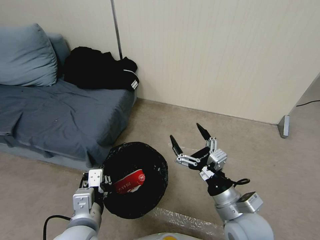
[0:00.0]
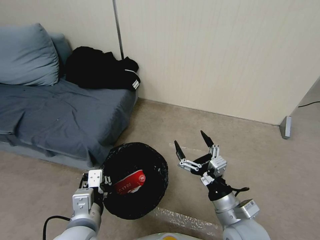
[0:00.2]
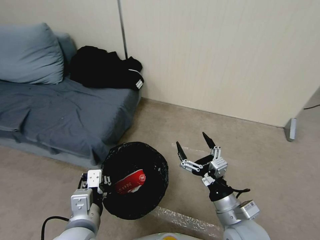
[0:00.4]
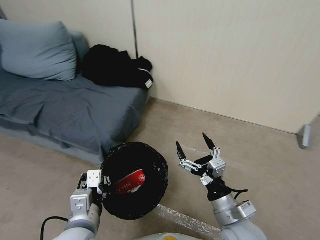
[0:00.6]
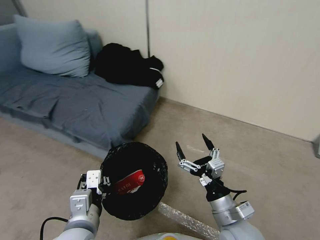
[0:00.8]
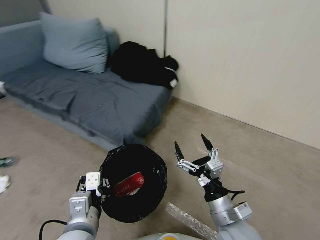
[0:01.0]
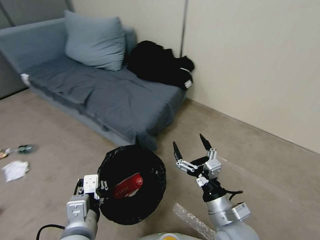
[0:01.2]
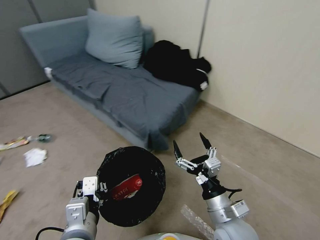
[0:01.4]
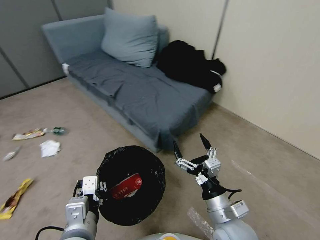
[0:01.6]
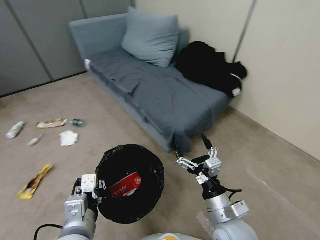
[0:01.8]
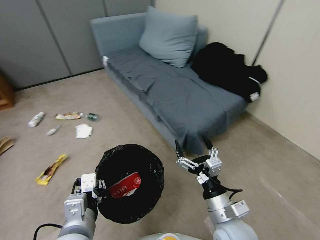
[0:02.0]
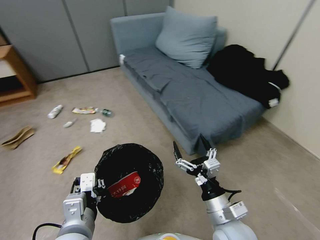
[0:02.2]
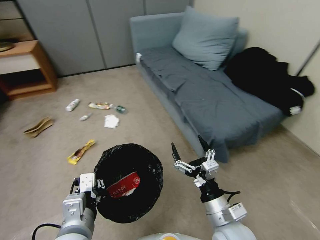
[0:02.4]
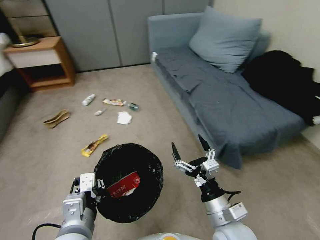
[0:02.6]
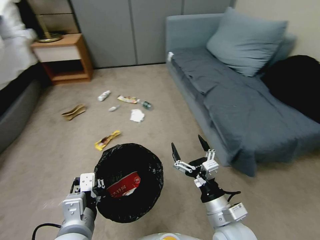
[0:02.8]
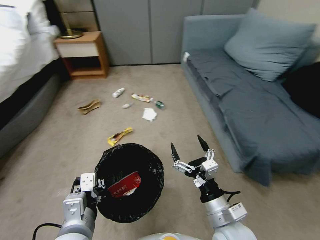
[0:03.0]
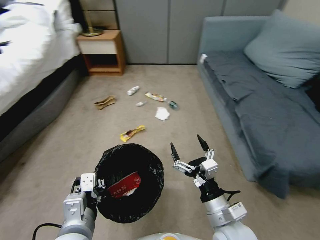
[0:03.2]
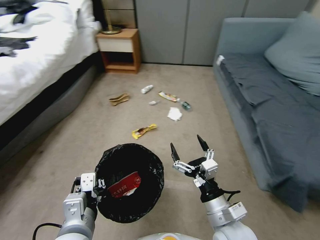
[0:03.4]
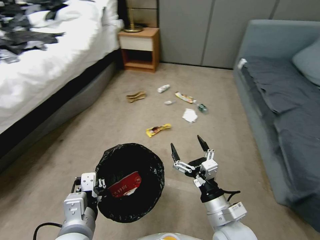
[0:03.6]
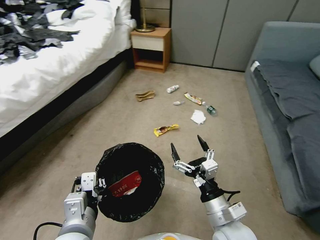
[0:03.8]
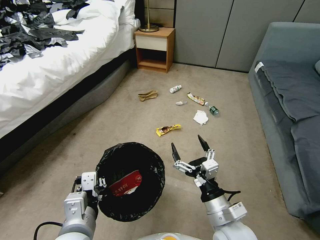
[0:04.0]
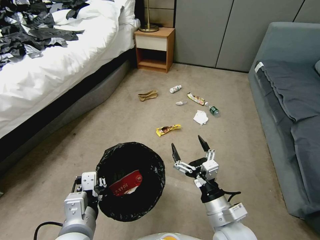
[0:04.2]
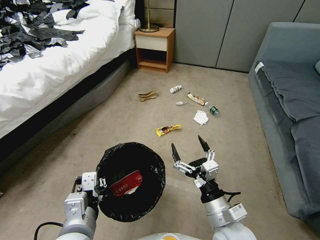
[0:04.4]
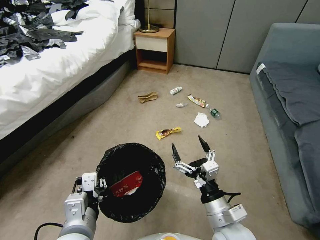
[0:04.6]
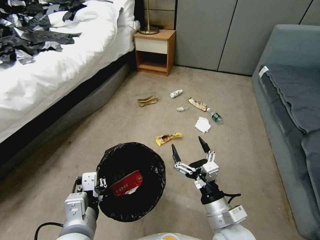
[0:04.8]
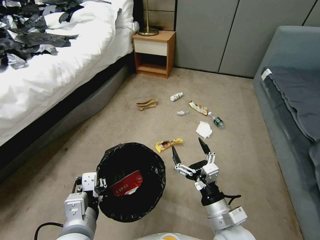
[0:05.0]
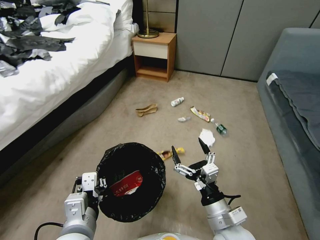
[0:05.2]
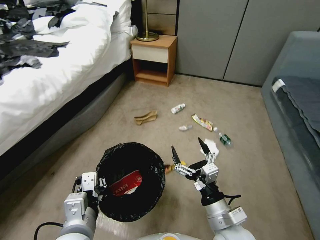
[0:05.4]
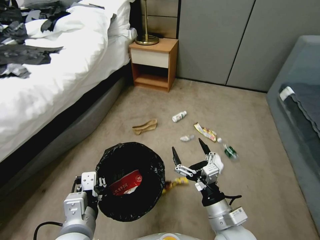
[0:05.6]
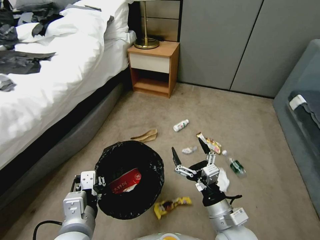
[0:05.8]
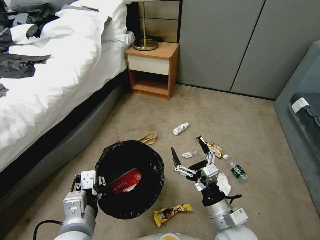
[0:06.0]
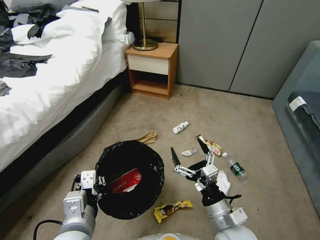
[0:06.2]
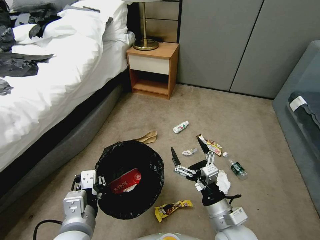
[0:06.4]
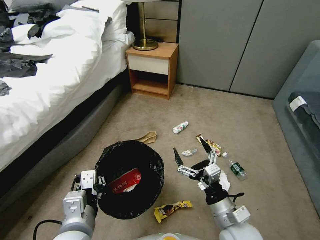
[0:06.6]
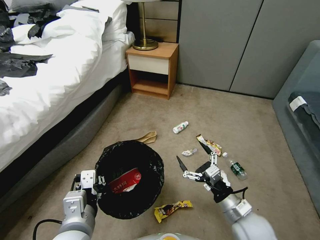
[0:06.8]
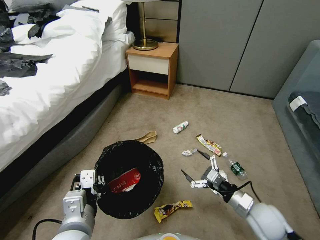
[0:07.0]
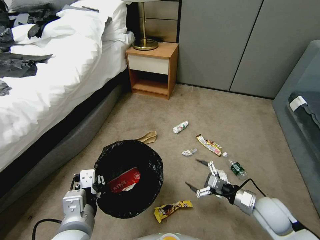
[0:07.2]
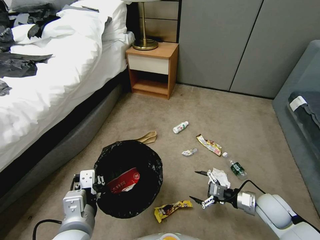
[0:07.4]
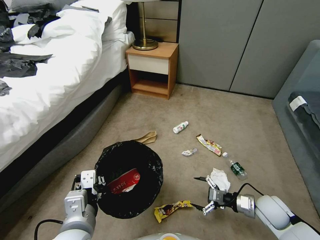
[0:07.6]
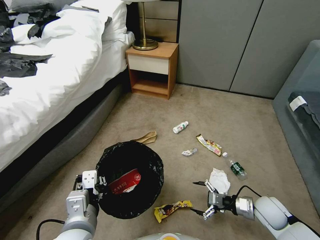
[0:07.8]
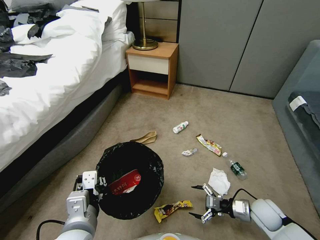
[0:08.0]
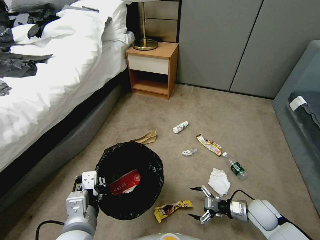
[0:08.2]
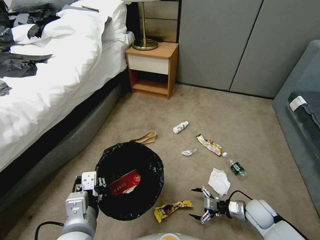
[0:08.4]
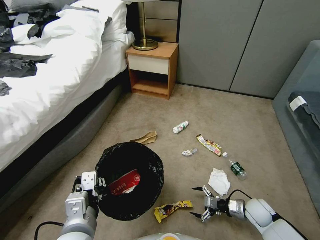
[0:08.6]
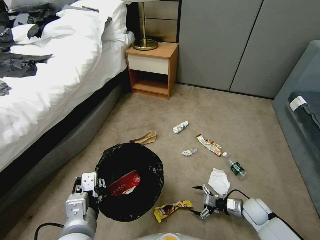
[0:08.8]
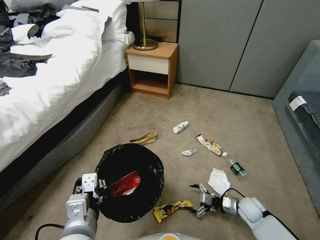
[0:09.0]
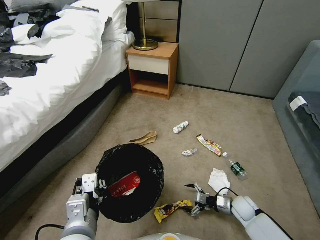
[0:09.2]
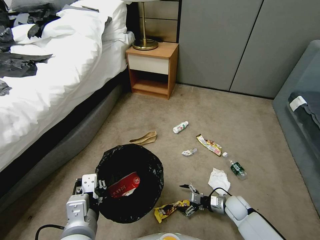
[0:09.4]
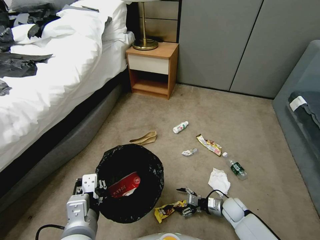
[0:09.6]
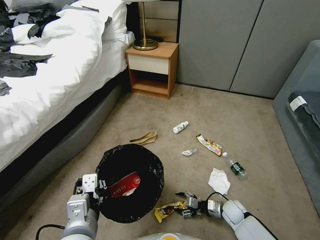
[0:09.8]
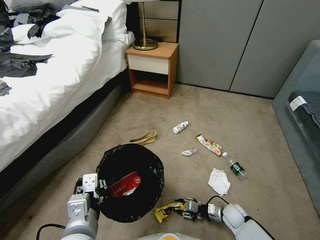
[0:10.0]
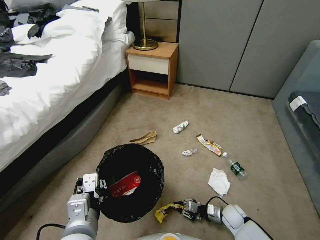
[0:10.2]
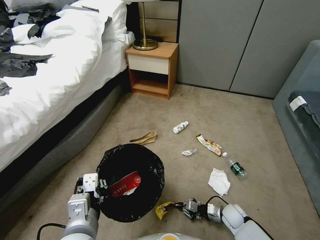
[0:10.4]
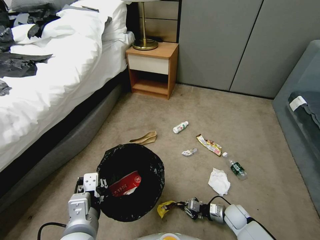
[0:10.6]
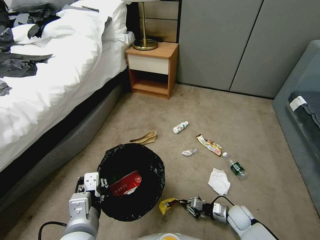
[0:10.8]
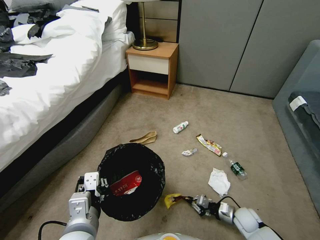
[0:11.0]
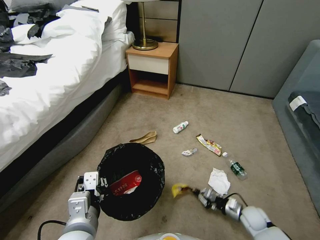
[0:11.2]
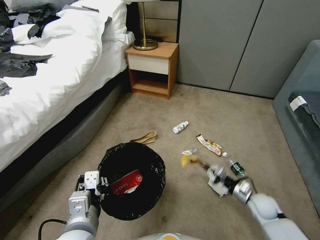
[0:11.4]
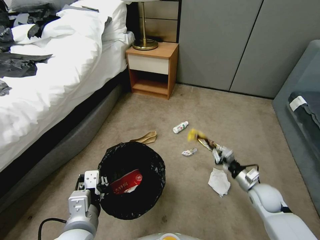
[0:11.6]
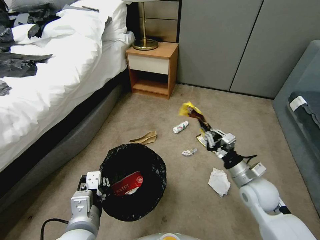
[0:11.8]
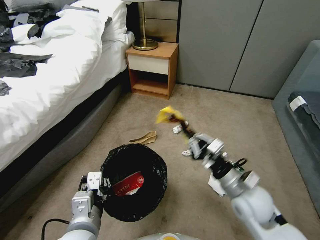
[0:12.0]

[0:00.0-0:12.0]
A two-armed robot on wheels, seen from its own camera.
Task of the whole recording: Pick up the trash bin, then pick up the garbage from the floor and place it into the trash bin.
0:06.0 to 0:07.6: The right gripper moves to the right, forward and downward, some 25 cm.
0:07.6 to 0:09.0: The right gripper moves downward, approximately 10 cm.
0:09.0 to 0:10.4: The right gripper moves to the left, some 5 cm, and closes up.
0:10.4 to 0:12.0: The right gripper is displaced upward by approximately 30 cm.

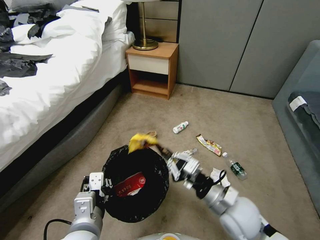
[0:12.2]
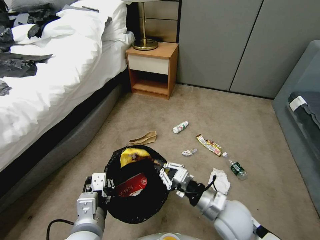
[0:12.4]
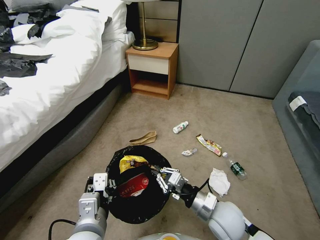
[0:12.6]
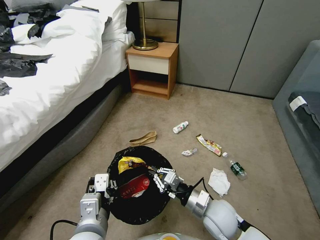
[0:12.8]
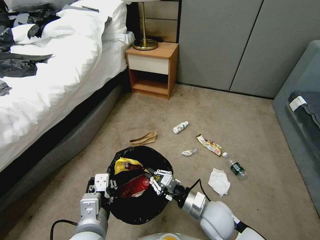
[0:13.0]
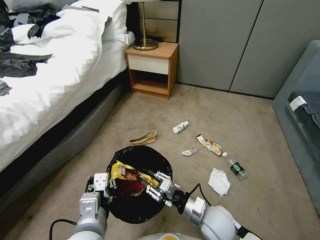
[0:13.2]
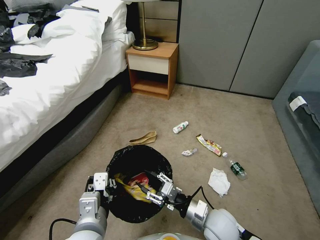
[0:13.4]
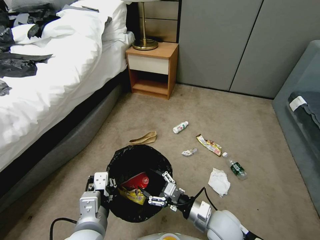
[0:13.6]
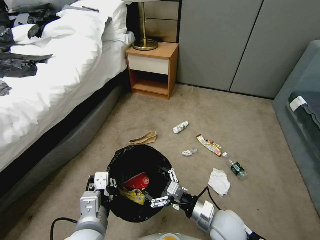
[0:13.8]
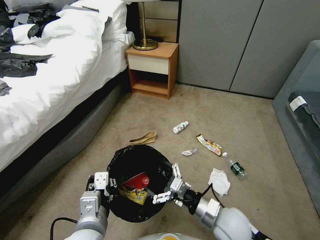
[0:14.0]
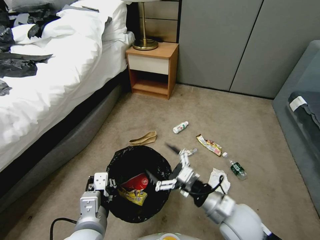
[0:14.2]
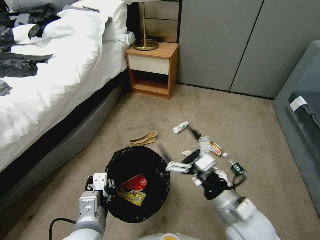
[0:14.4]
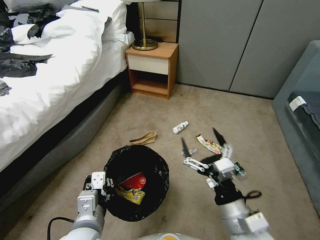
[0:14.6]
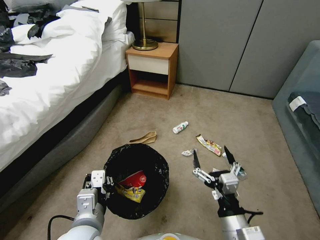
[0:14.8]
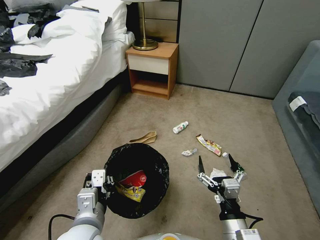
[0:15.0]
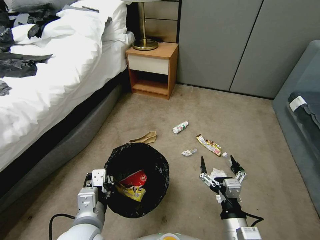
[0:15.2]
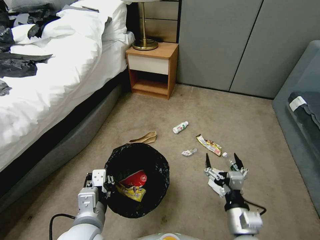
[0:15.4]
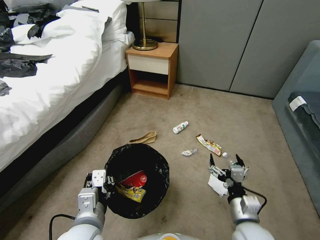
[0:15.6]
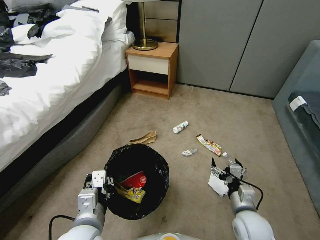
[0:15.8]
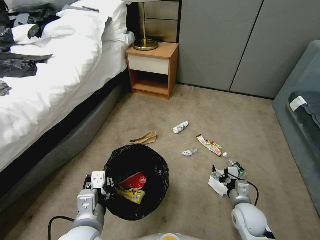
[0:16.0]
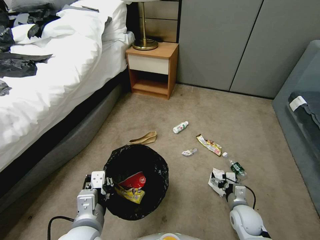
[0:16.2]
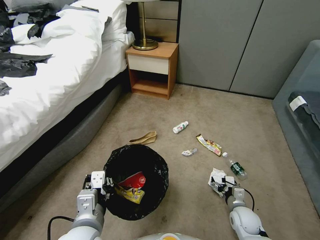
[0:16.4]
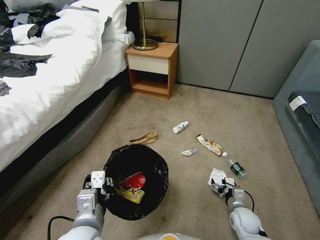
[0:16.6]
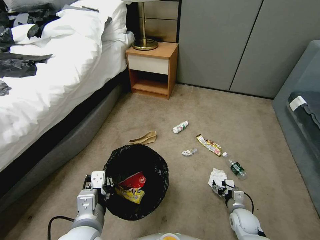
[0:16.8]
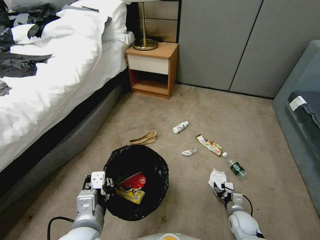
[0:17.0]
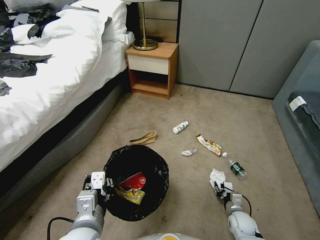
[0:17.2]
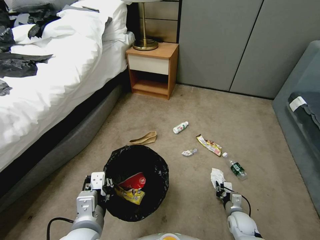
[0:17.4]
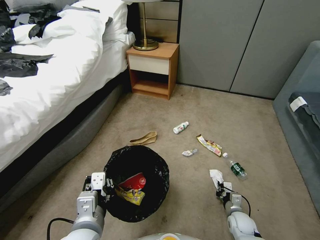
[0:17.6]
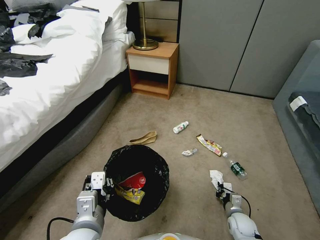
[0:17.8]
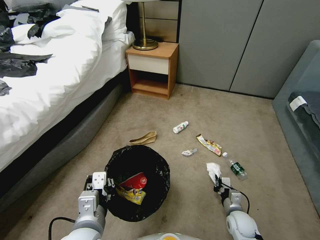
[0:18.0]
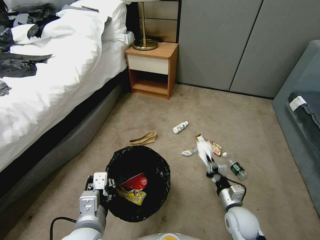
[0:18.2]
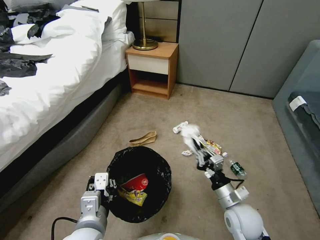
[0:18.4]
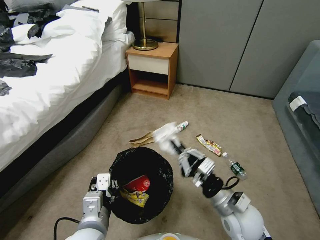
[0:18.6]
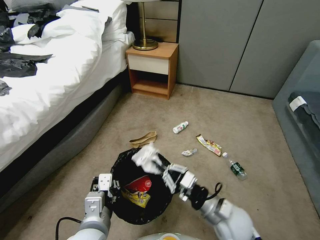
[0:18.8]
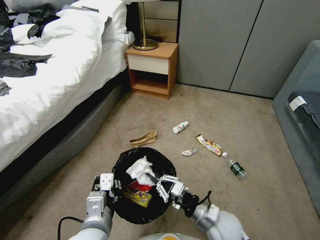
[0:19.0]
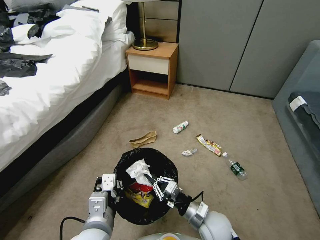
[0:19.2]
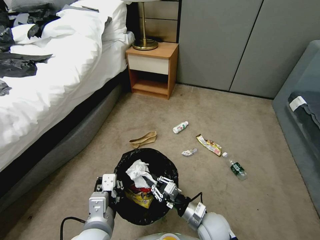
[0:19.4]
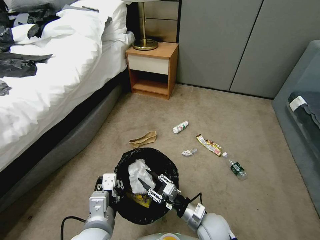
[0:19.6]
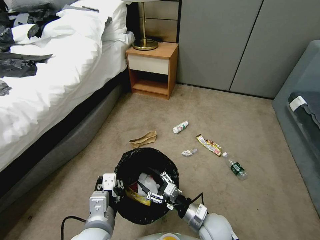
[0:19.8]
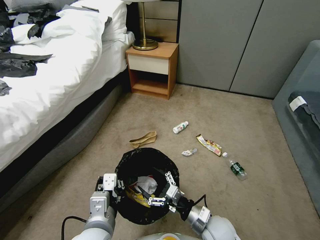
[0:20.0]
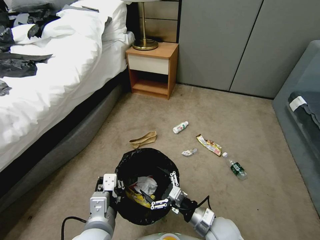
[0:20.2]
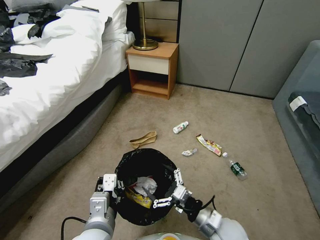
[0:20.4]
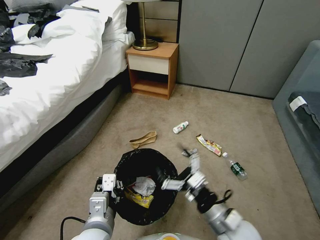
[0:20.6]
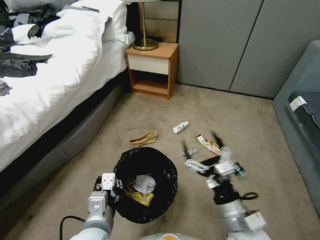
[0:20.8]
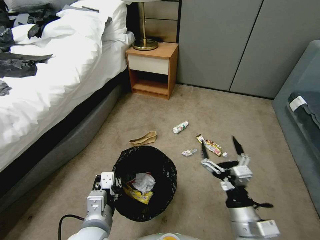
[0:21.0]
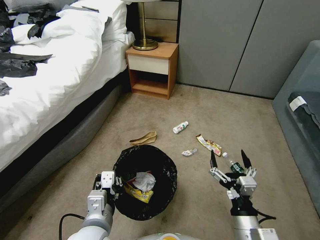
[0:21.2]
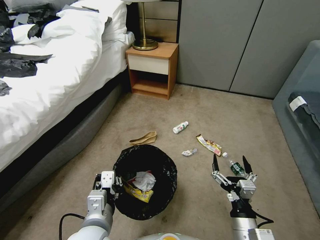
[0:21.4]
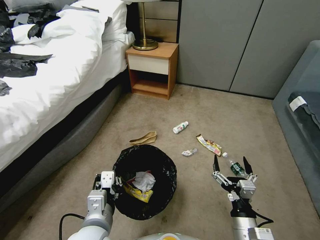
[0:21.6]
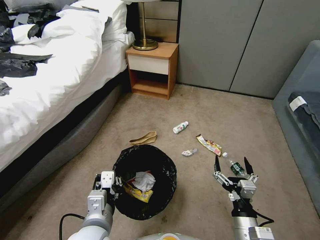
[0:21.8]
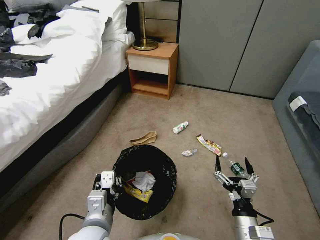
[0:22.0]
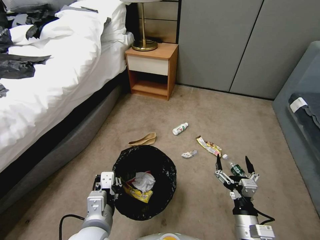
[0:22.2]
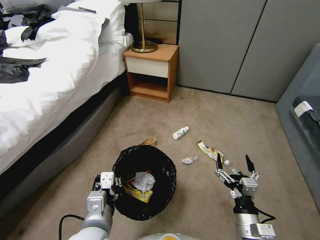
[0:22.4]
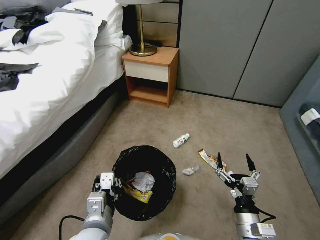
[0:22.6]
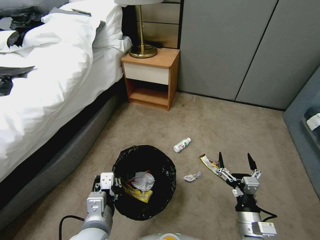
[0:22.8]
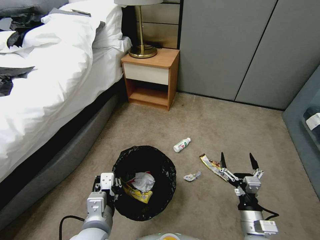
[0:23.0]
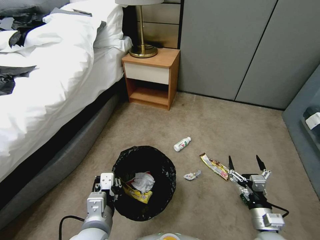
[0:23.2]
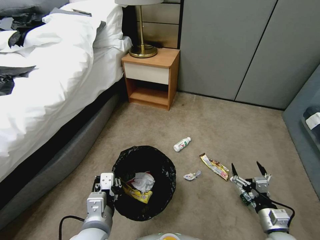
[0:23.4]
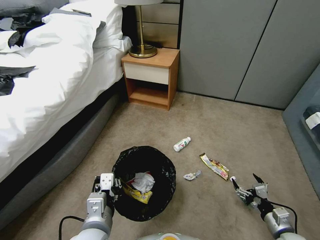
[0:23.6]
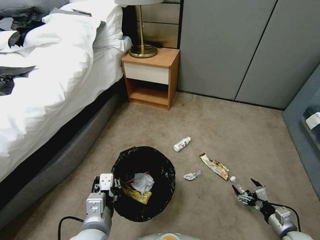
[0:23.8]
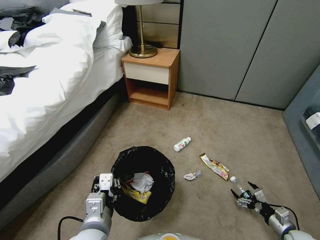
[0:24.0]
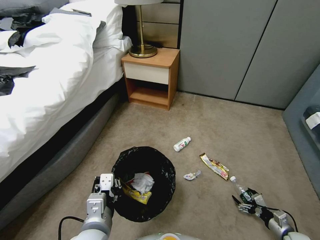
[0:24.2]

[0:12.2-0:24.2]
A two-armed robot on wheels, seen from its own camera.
Task of the whole recording: Pick up the trash bin, then pick up the garbage from the floor and place it into the trash bin.
0:12.2 to 0:13.8: The right gripper shifts roughly 5 cm downward, and opens.
0:13.8 to 0:15.2: The right gripper is displaced backward by approximately 10 cm, and reaches some 10 cm upward, then returns.
0:15.2 to 0:16.6: The right gripper travels downward, forward and to the right by roughly 25 cm.
0:16.6 to 0:18.2: The right gripper closes.
0:18.2 to 0:19.8: The right gripper heads to the left and upward, covering approximately 15 cm, and opens up.
0:19.8 to 0:21.2: The right gripper travels upward, backward and to the right by approximately 15 cm, and opens up.
0:22.6 to 0:24.2: The right gripper travels to the right and downward by some 30 cm.
